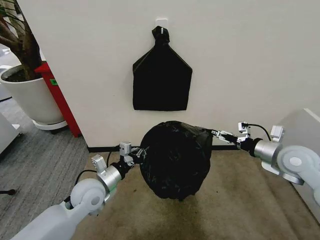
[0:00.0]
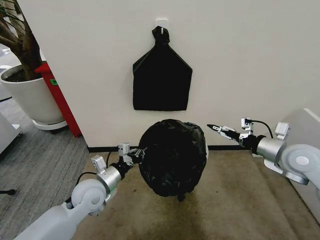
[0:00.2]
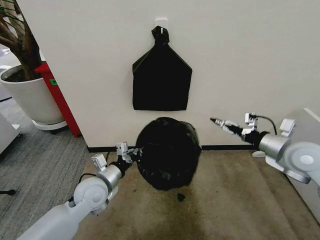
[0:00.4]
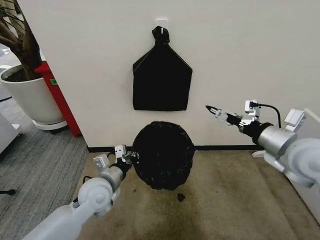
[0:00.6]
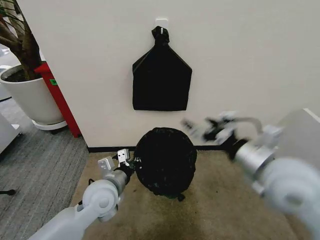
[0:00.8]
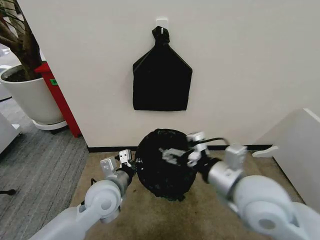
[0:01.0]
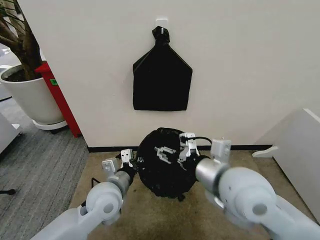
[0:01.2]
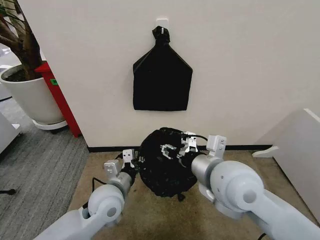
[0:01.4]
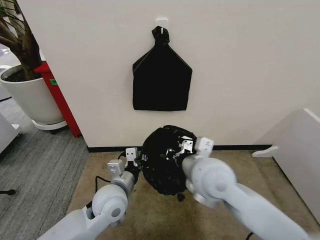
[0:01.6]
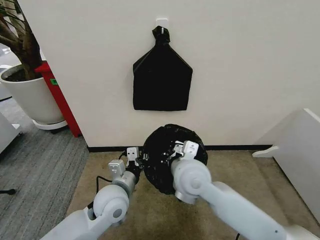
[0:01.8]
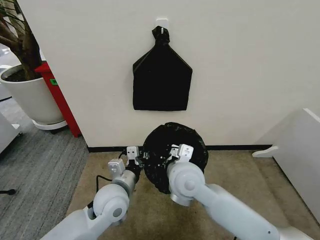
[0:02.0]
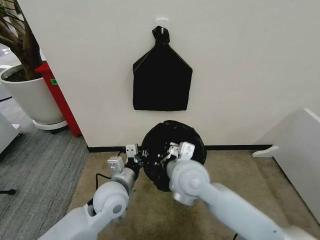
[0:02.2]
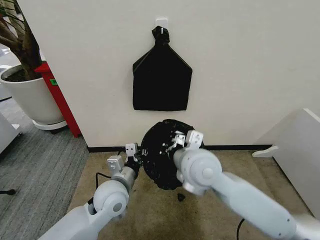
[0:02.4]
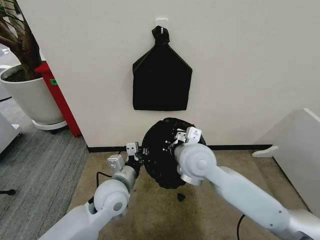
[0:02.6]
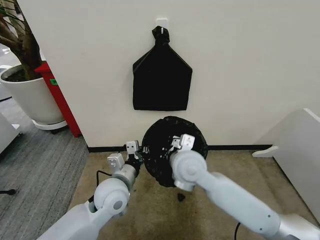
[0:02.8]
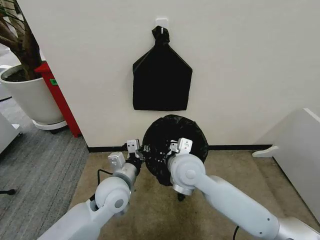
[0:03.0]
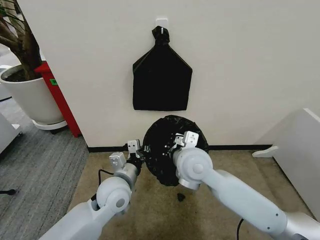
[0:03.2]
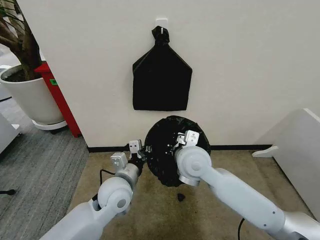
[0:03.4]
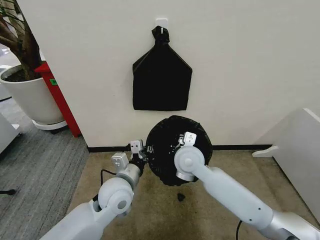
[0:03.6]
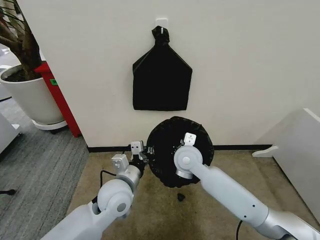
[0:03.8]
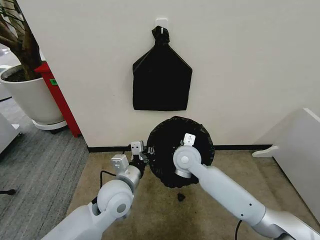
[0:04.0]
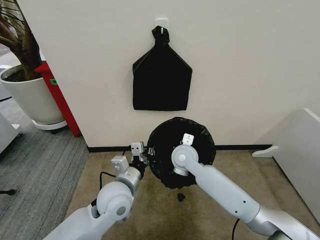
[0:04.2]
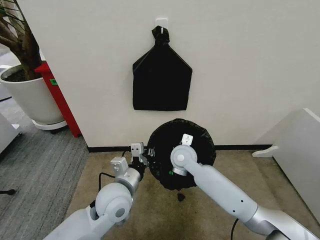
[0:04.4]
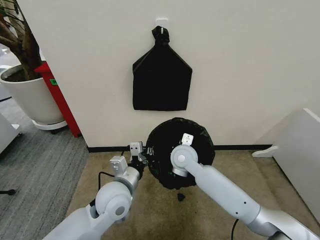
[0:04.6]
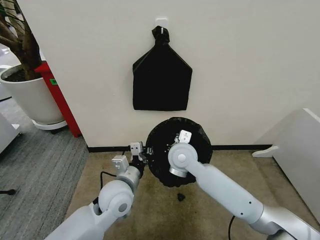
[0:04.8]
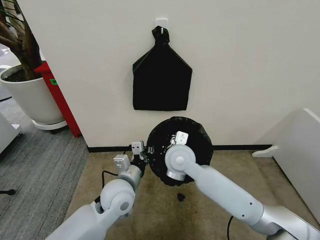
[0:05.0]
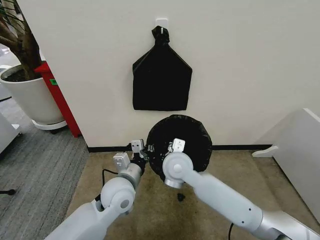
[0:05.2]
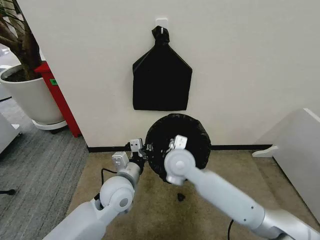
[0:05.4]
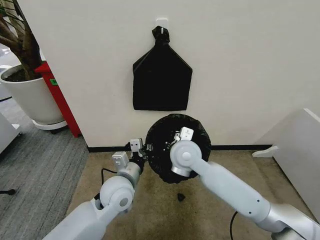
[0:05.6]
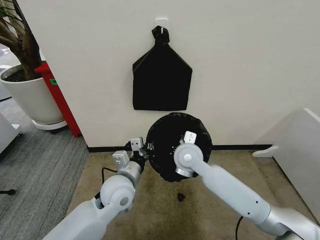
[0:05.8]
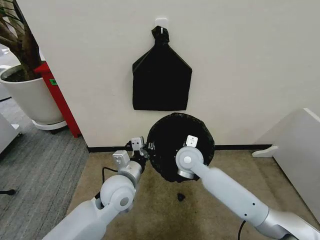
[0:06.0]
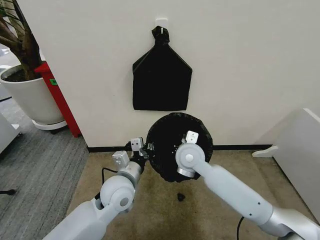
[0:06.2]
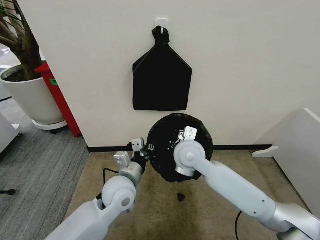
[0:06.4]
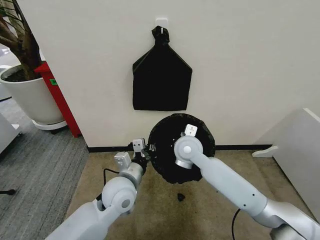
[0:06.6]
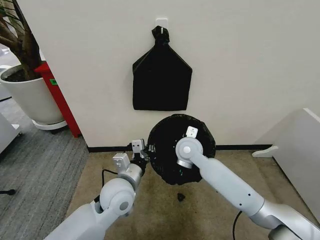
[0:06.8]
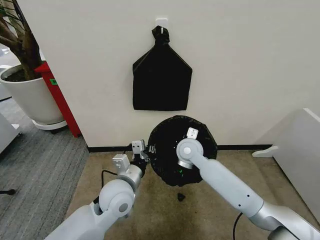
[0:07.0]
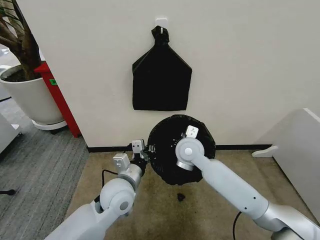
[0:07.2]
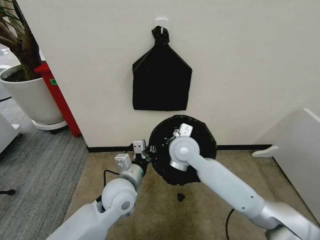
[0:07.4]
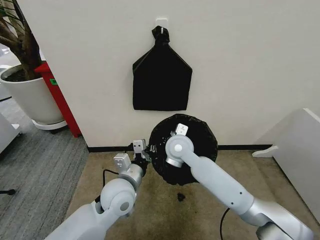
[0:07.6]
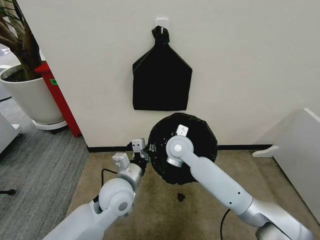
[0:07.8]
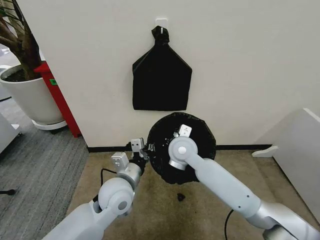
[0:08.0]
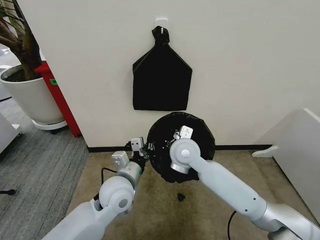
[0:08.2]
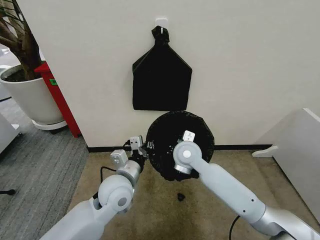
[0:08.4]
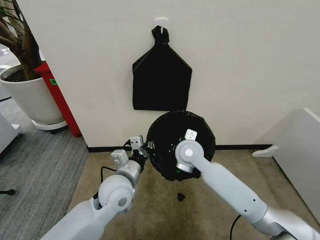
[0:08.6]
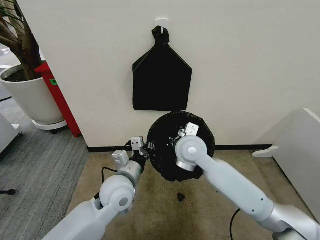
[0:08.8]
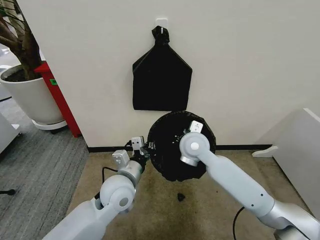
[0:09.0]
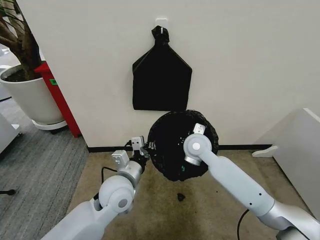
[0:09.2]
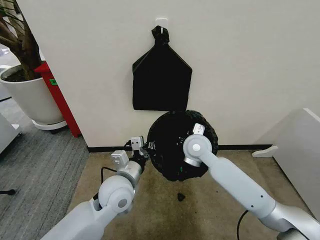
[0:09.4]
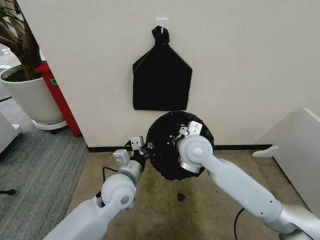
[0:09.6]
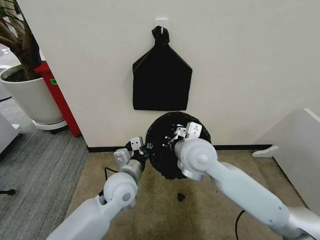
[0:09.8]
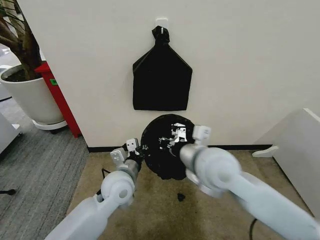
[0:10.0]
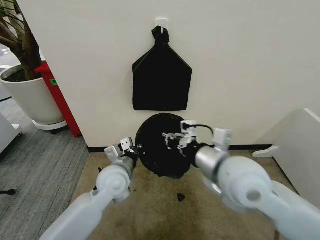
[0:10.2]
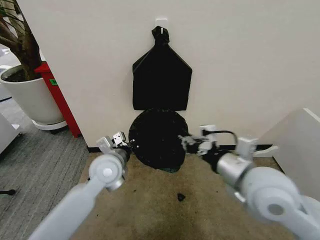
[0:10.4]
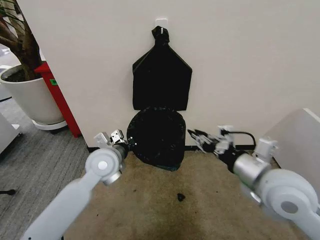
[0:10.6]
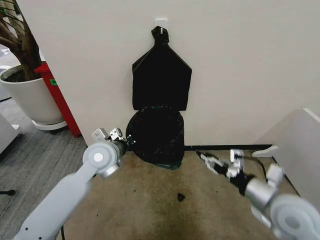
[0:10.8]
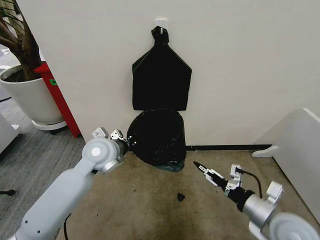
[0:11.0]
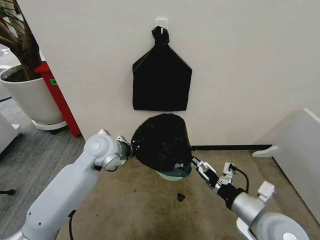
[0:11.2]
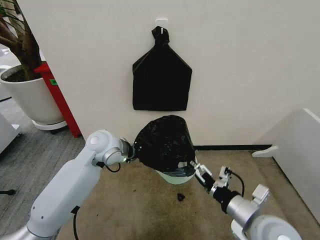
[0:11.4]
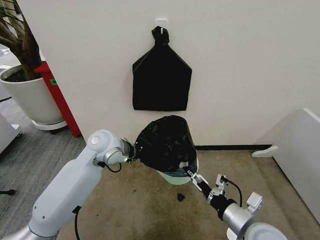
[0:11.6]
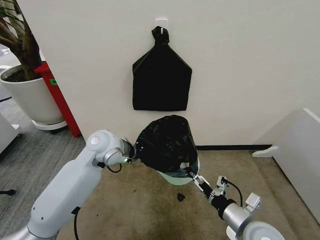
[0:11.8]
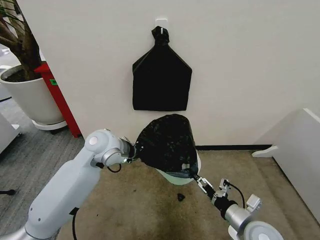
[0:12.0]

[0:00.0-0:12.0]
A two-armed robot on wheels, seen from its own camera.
Task of the whole recording: Place the garbage bag over the trash bin.
0:00.0 to 0:01.6: The right gripper goes about 25 cm to the left, and closes its fingers; the left gripper shifts approximately 10 cm to the right.
0:01.6 to 0:03.0: The right gripper shifts approximately 5 cm to the left.
0:03.0 to 0:04.4: The right gripper travels forward and downward by about 10 cm.
0:06.0 to 0:07.6: The right gripper swings up and down, some 5 cm each way, with 2 reversals.
0:07.6 to 0:09.0: The right gripper shifts by some 5 cm.
0:09.0 to 0:10.4: The right gripper shifts approximately 20 cm backward, to the right and upward; the left gripper shifts by some 5 cm.
0:10.4 to 0:12.0: The left gripper shifts approximately 5 cm upward, while the right gripper is displaced downward by approximately 20 cm, and opens up.

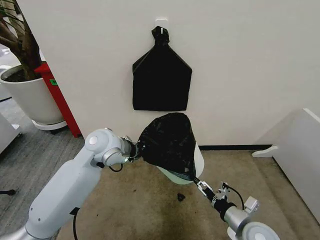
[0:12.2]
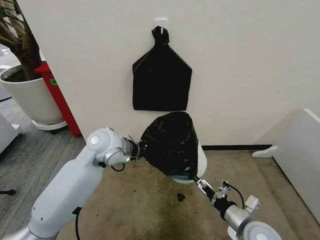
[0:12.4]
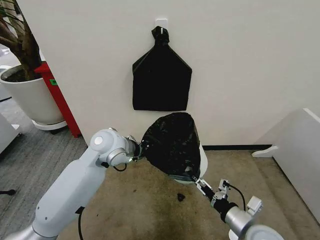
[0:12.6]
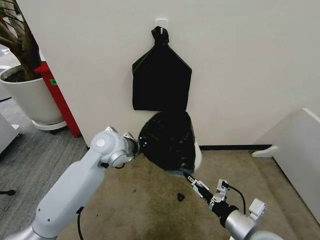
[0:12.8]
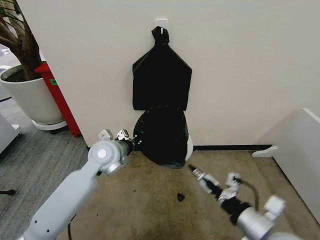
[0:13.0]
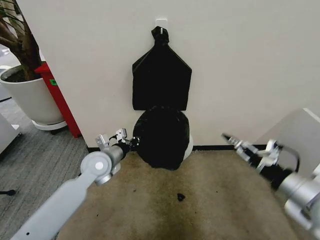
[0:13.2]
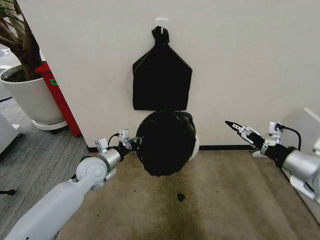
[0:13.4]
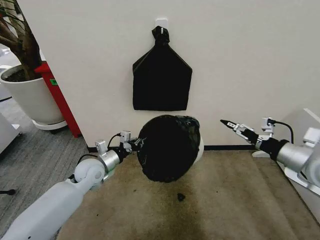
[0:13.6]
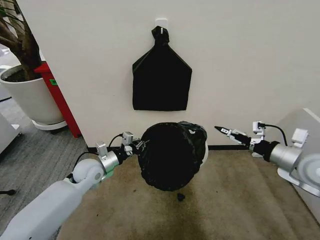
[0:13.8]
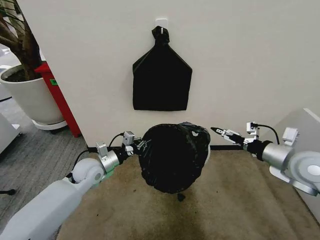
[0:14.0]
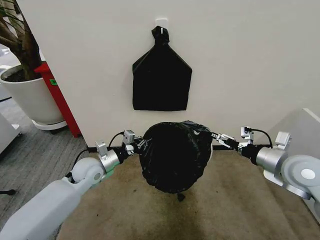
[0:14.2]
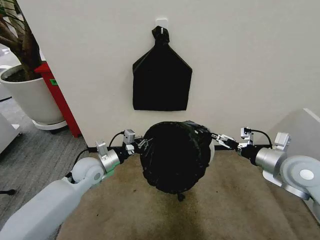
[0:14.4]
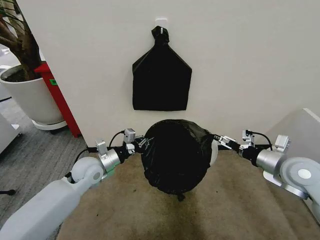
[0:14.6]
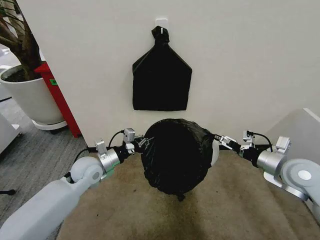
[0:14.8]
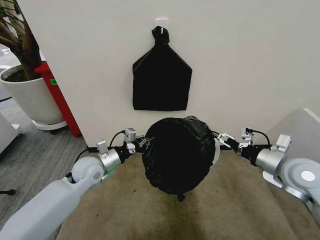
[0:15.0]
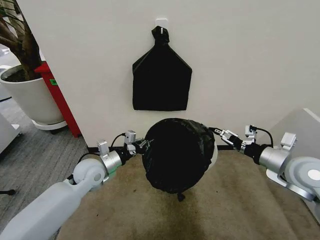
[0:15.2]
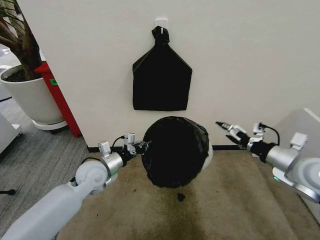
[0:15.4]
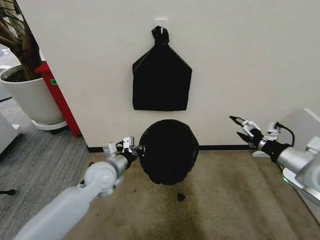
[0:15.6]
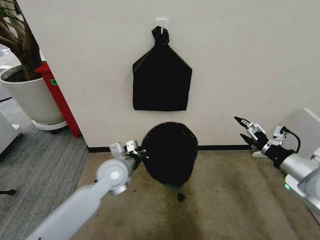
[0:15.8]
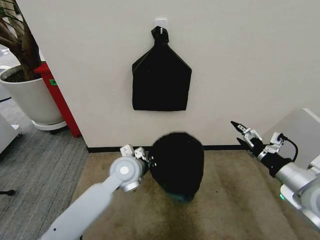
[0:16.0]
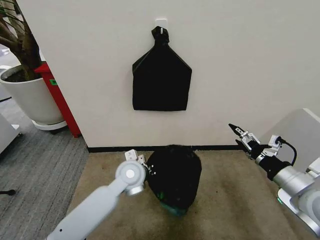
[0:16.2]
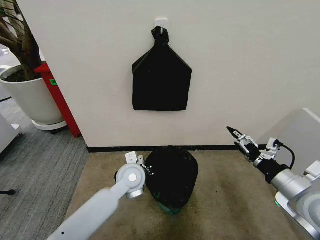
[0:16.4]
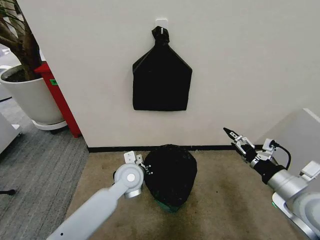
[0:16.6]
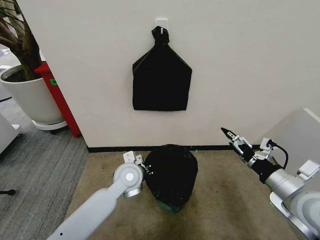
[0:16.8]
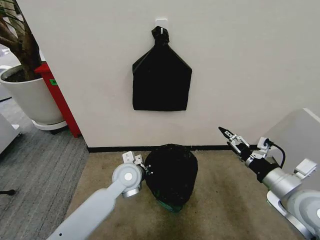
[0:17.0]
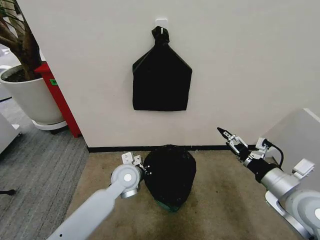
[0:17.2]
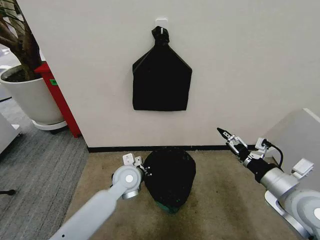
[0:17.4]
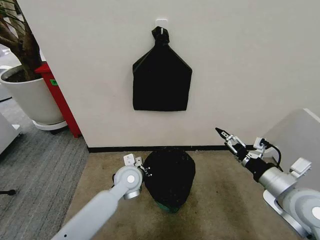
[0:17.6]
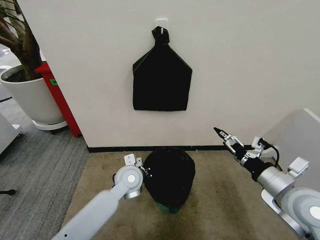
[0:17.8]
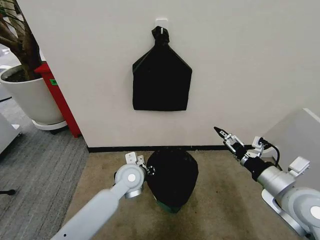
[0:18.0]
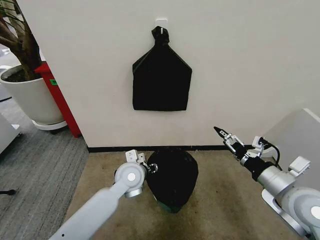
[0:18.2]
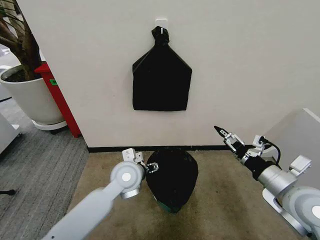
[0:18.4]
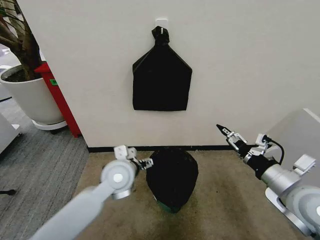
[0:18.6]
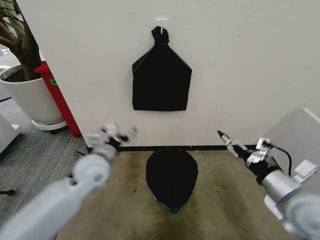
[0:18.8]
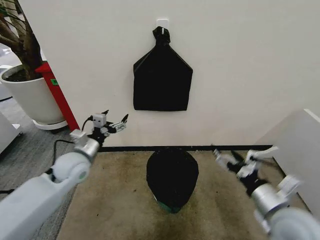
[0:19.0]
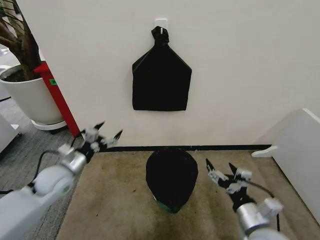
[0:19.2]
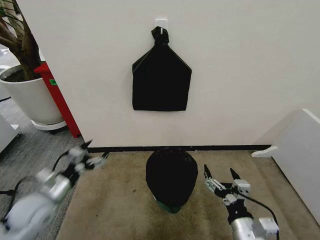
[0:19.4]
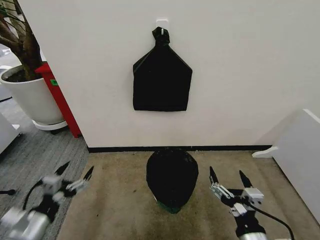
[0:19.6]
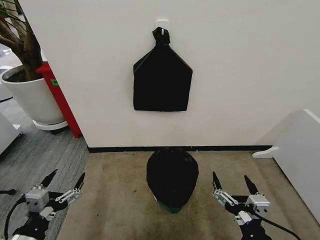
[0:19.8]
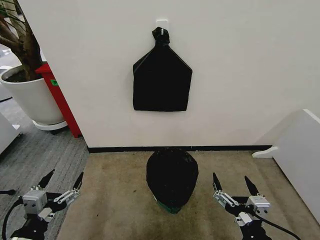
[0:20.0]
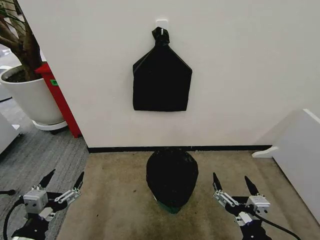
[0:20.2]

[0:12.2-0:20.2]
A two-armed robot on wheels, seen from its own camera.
Task of the whole recording: Place the garbage bag over the trash bin.
0:12.2 to 0:13.8: The right gripper is displaced upward, to the right and forward by about 25 cm. Meanwhile the left gripper travels downward and to the left by roughly 15 cm.
0:13.8 to 0:15.4: The grippers move only a little.
0:15.4 to 0:17.0: The left gripper is displaced to the right by some 10 cm, while the right gripper shifts some 5 cm backward.
0:17.0 to 0:18.6: The left gripper moves upward, roughly 5 cm, and opens up.
0:18.6 to 0:20.2: The right gripper heads backward, to the left and downward, covering approximately 20 cm. Meanwhile the left gripper travels backward and to the left by some 30 cm.
